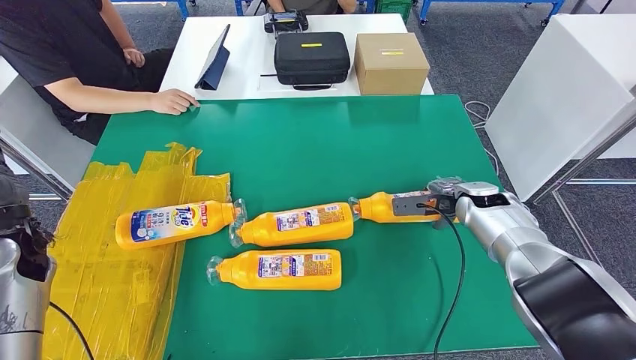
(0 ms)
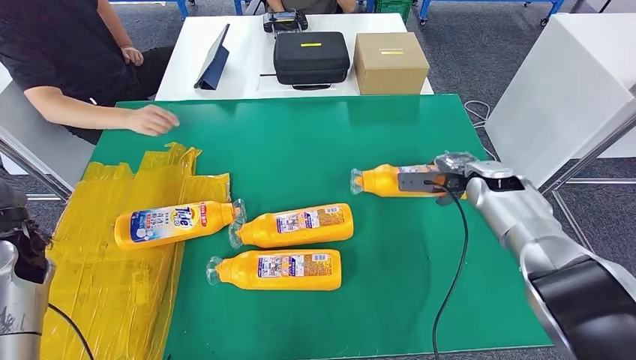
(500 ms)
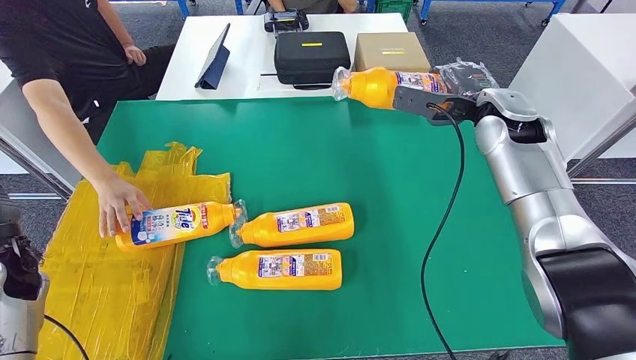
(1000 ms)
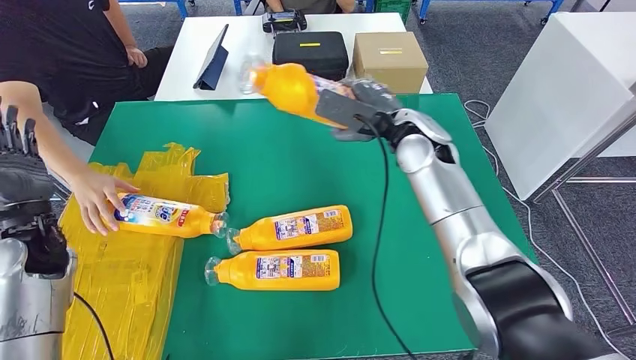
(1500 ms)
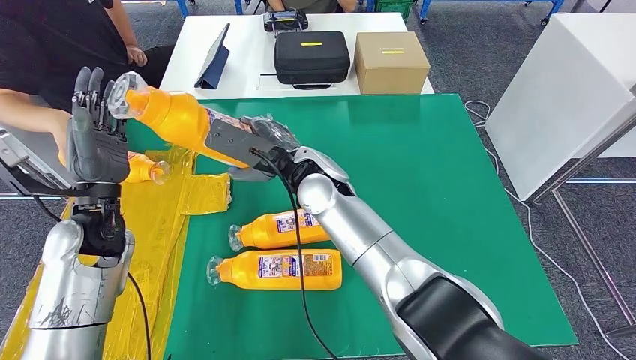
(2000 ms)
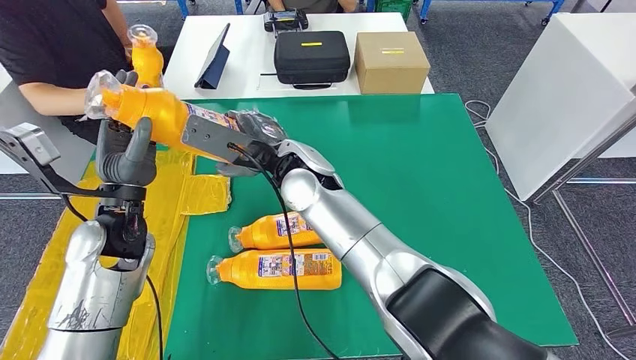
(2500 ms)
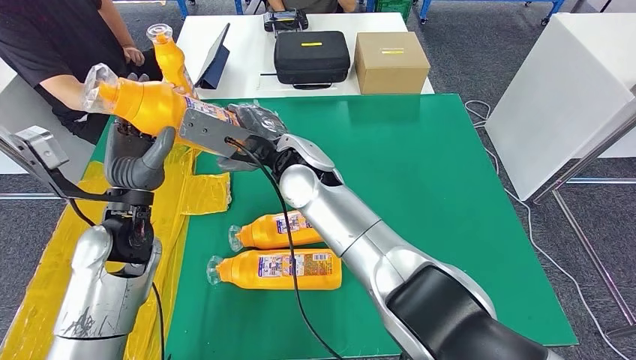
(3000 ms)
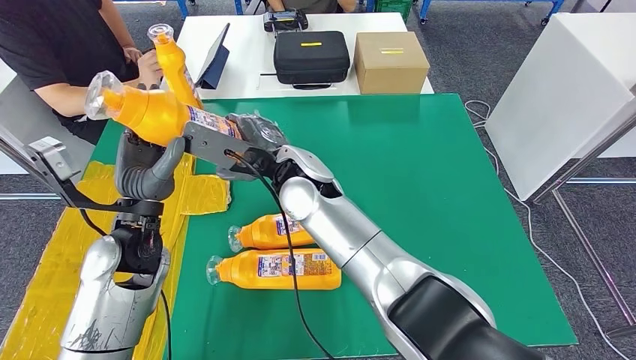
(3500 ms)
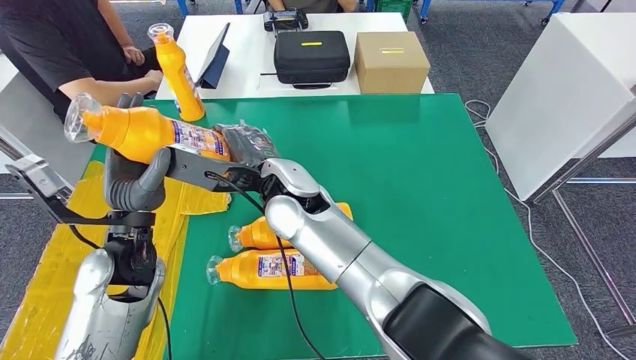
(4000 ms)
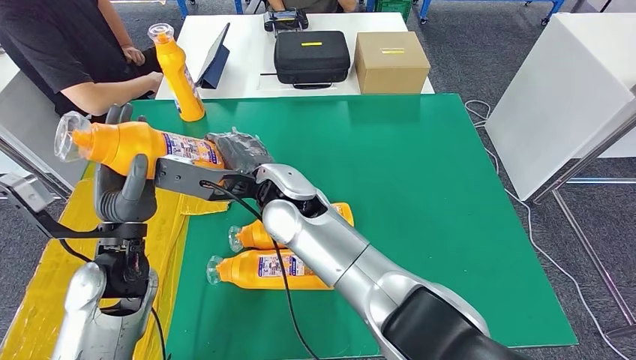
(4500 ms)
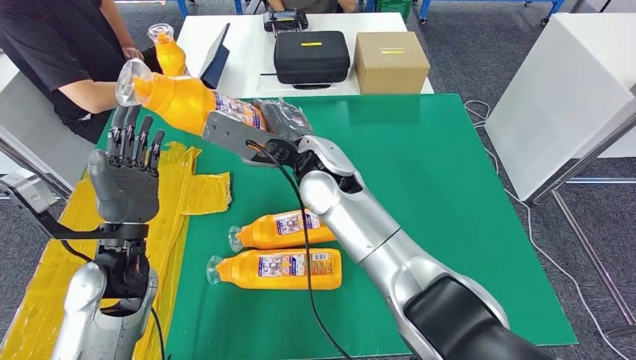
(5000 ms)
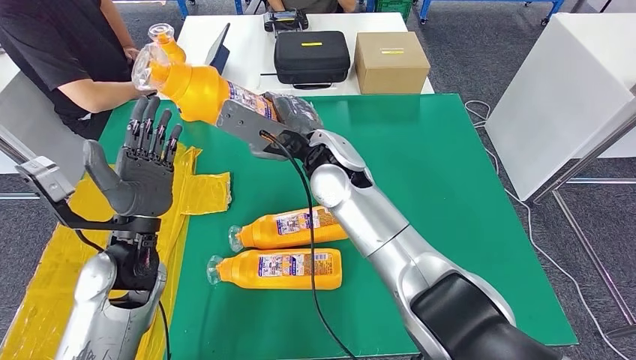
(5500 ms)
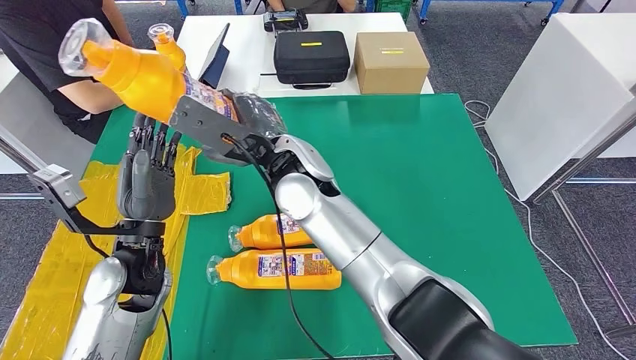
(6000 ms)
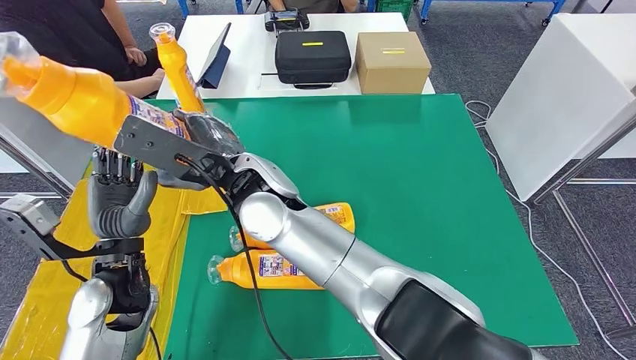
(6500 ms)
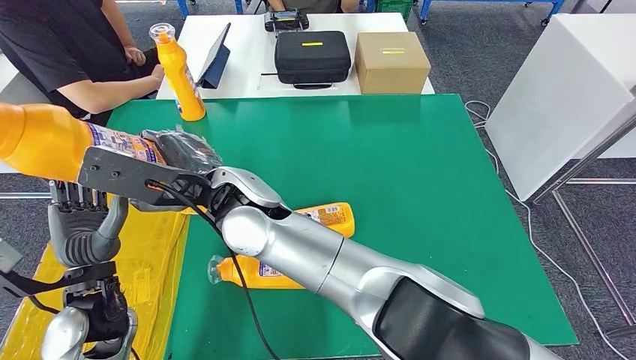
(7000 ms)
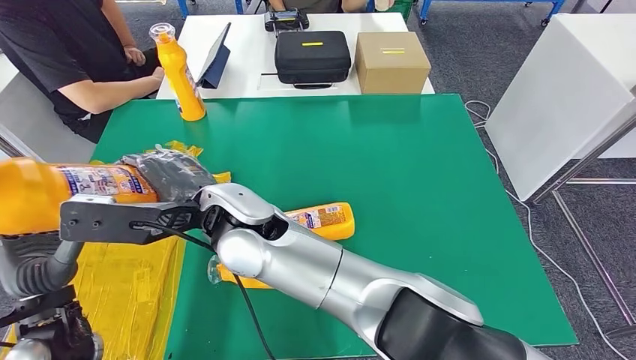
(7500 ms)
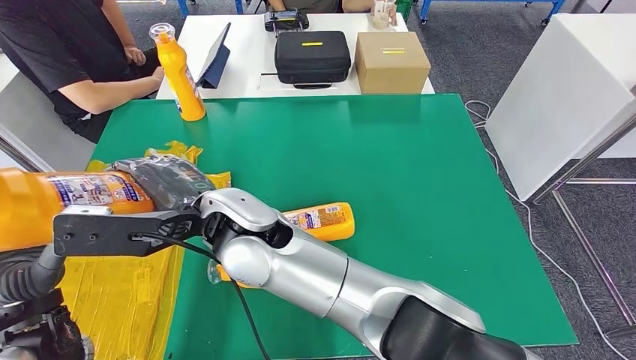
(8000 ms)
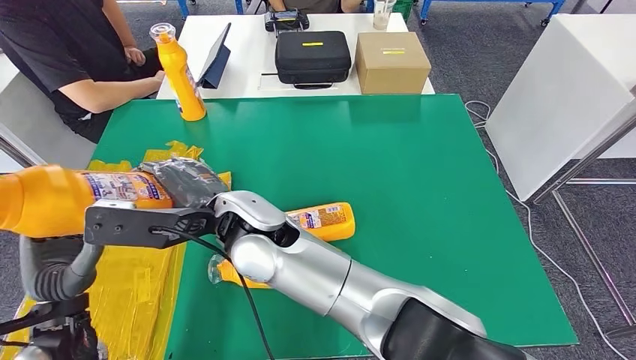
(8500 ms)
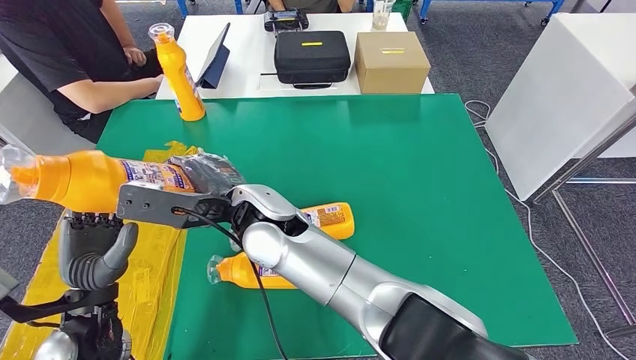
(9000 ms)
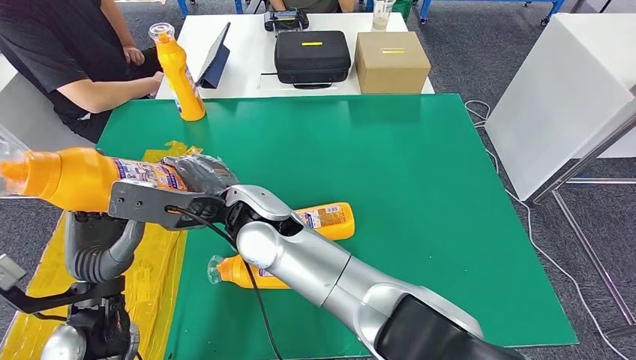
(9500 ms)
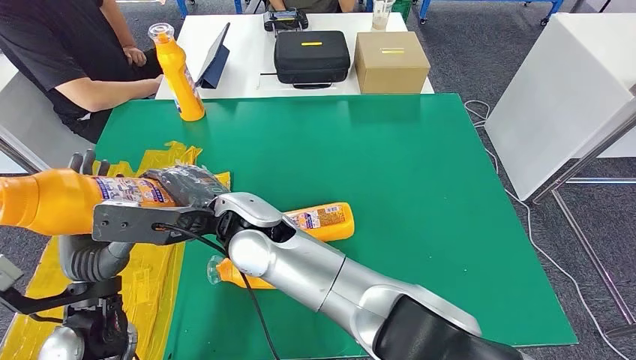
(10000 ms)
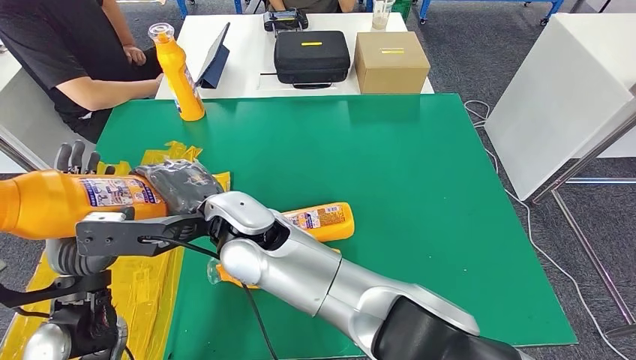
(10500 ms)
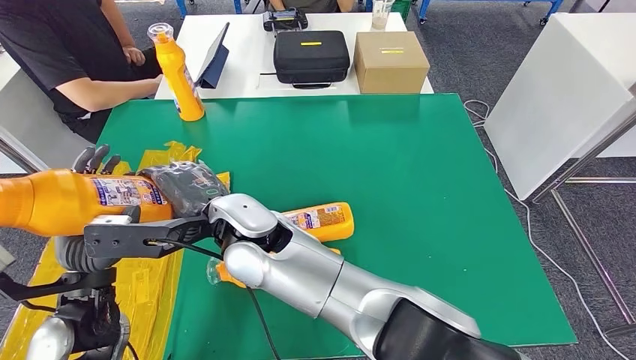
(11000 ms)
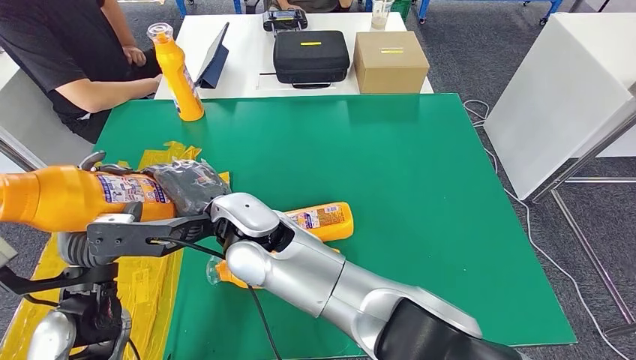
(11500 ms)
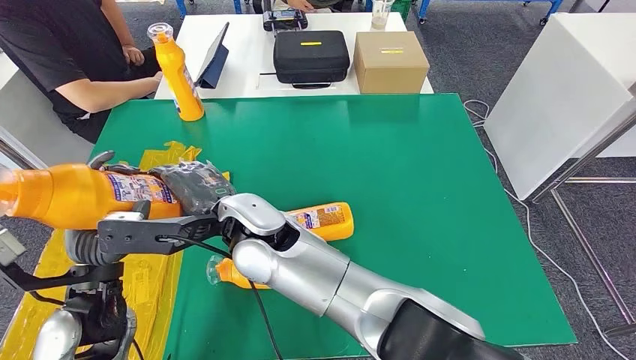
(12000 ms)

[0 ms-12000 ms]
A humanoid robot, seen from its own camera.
Step, 0 ms to 3000 ms: Pick up the bottle from the table.
8000 ms to 10000 ms: The left hand shifts approximately 5 cm to the right.
10000 ms to 12000 ms: There are only small adjustments of the hands.

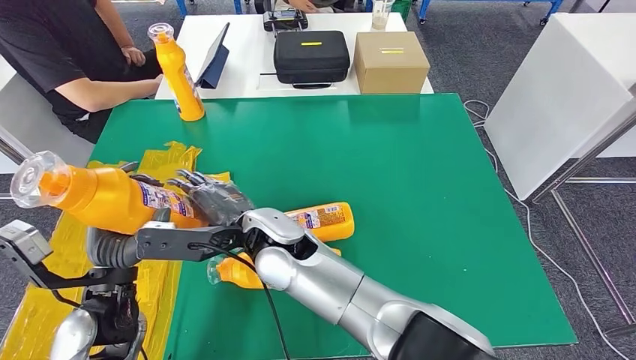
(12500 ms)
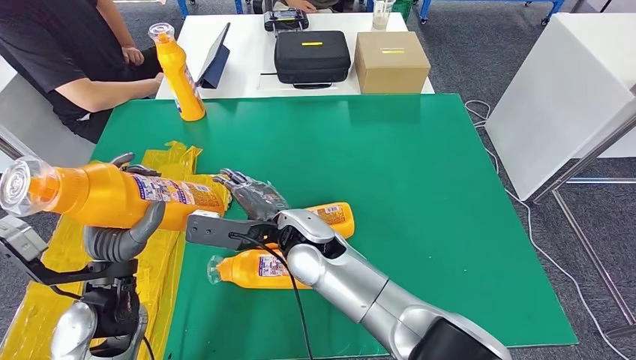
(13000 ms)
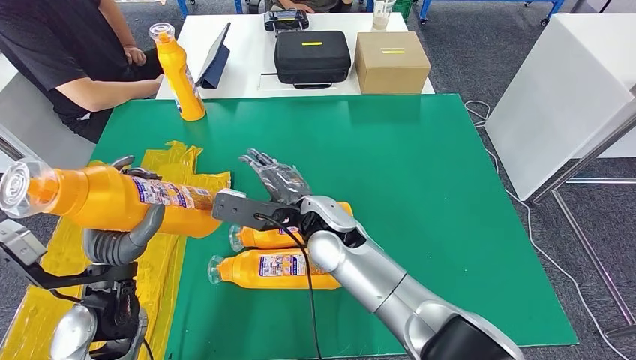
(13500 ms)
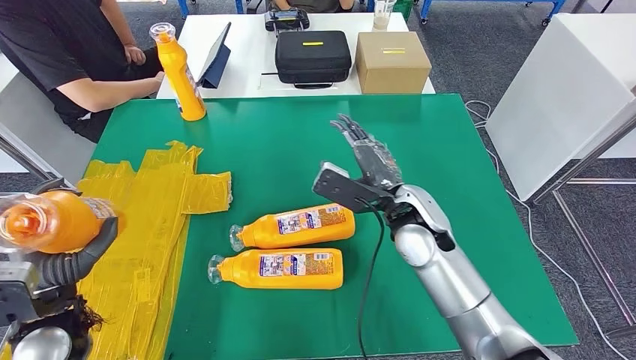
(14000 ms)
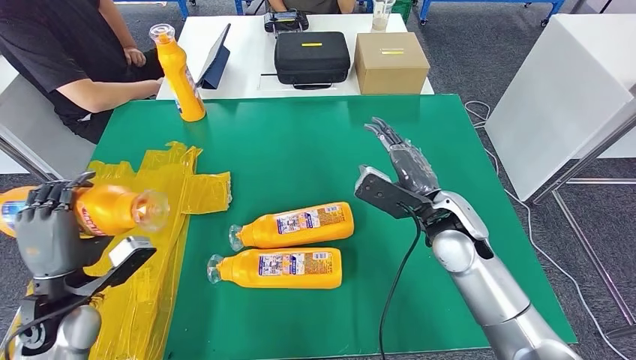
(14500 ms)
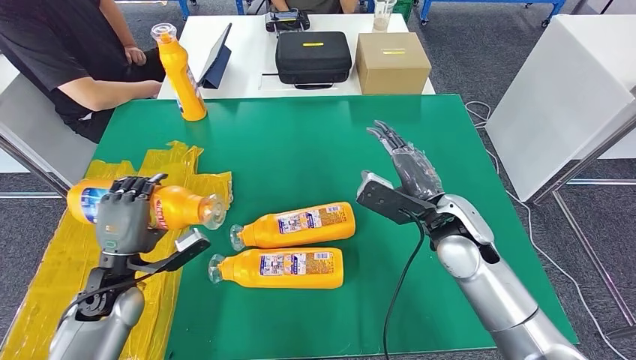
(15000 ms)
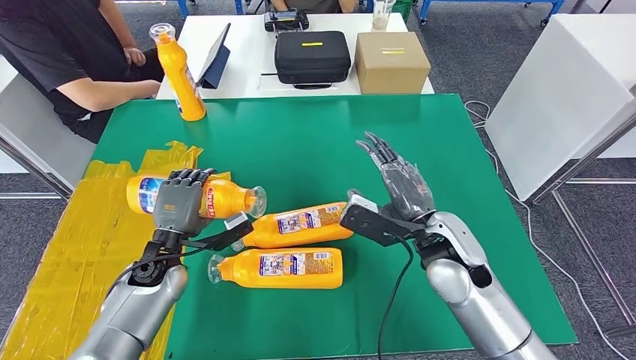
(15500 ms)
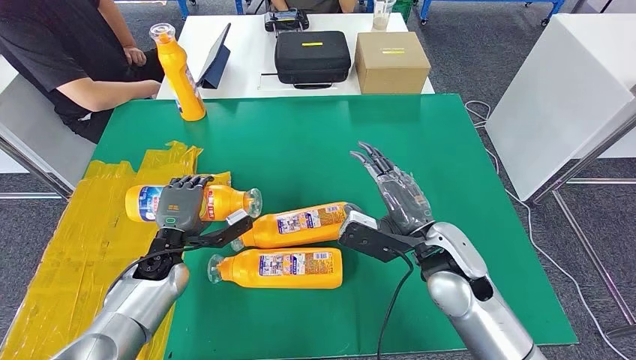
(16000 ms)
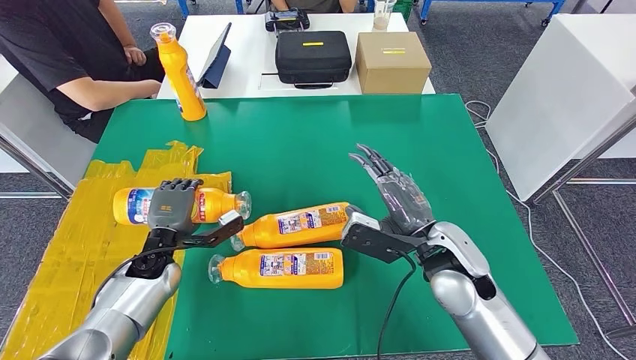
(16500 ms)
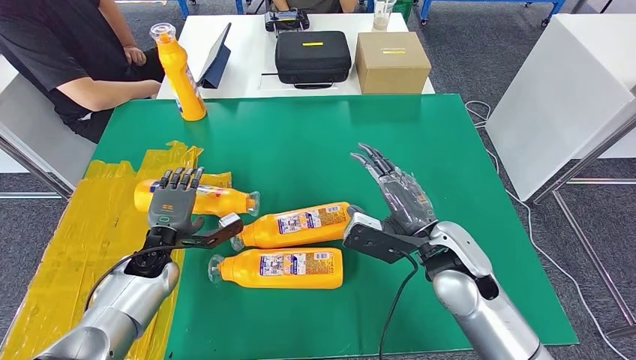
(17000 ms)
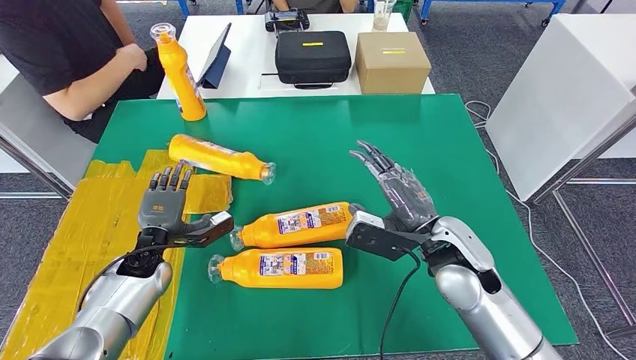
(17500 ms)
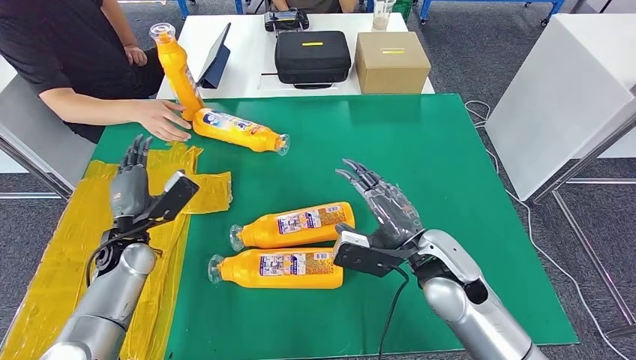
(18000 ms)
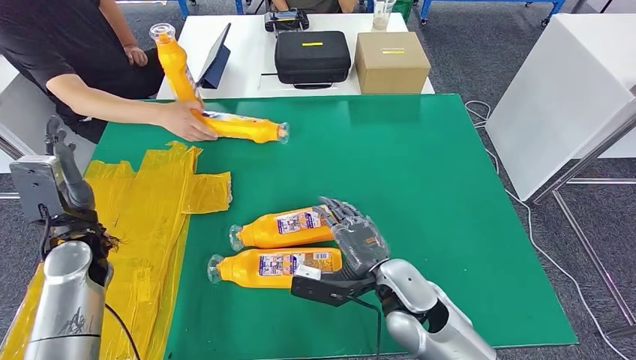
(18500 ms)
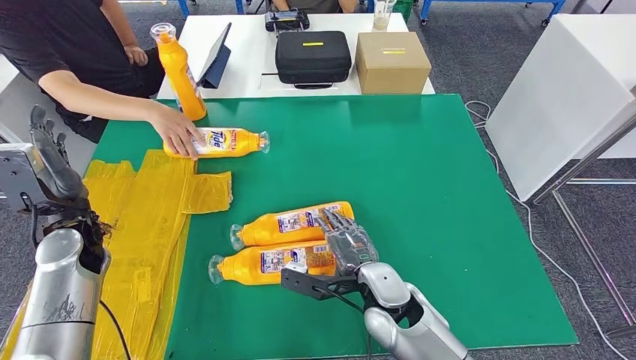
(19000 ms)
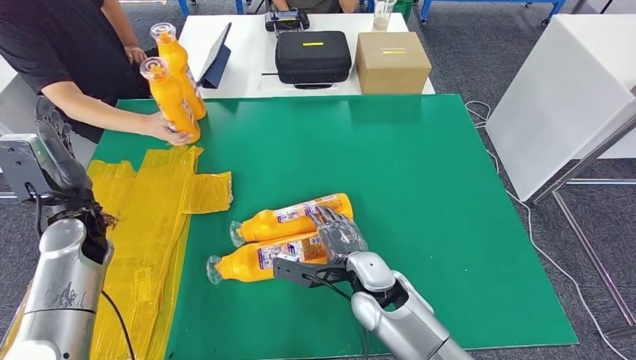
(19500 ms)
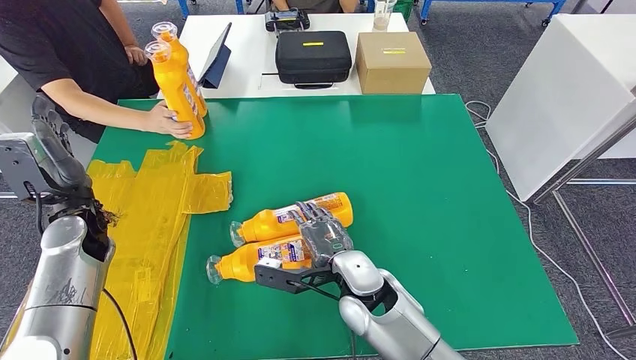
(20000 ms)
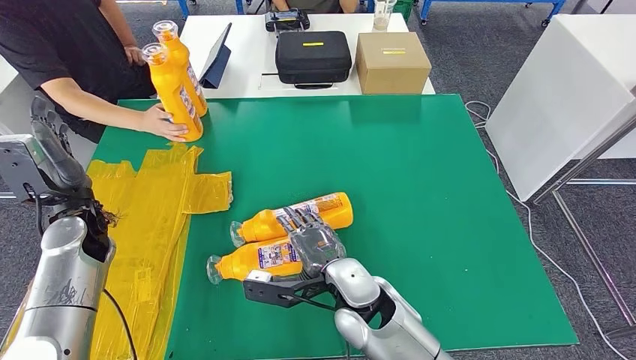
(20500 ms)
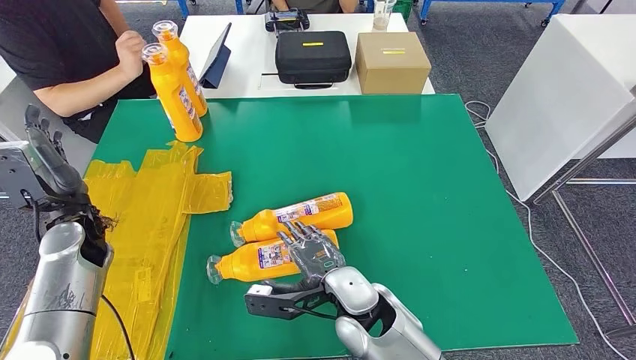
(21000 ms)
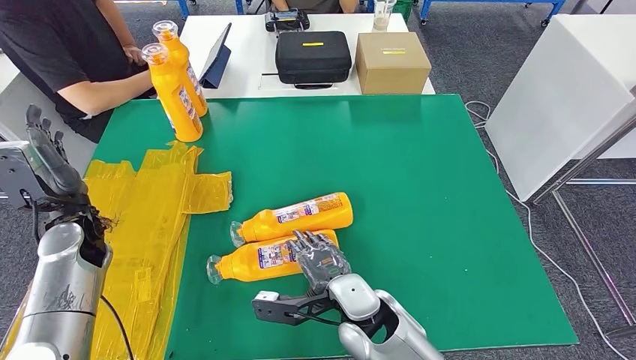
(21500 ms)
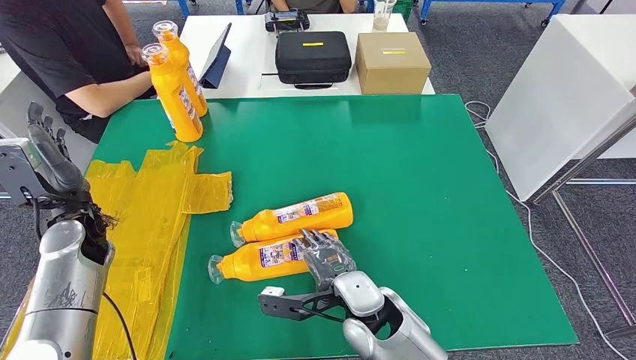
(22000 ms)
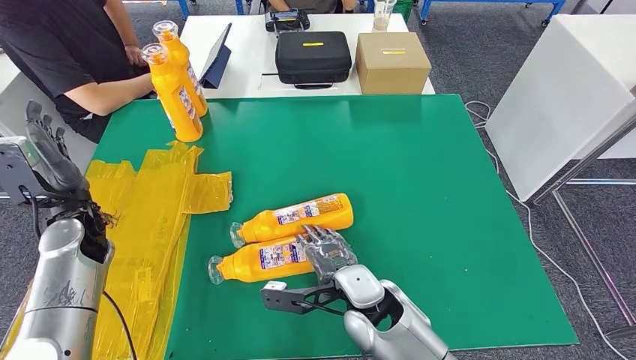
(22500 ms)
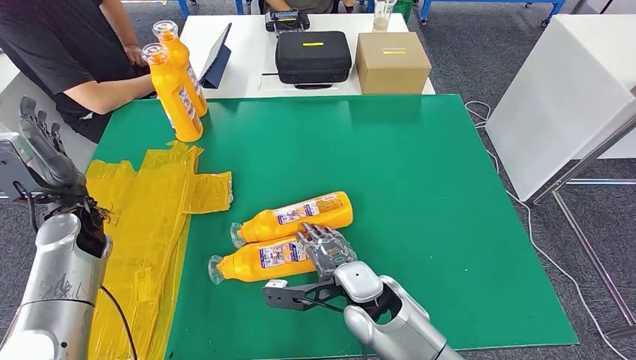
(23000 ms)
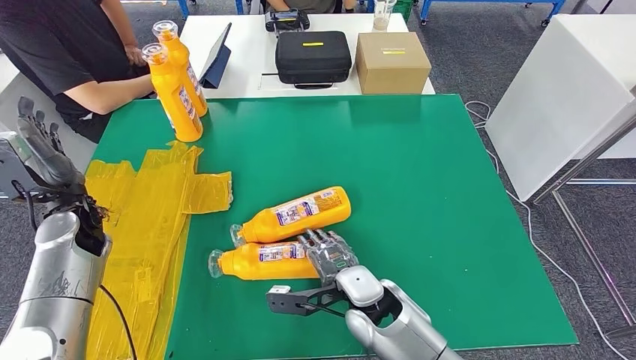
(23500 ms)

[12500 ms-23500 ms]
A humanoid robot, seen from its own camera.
Step, 12500 ms to 15000 ms: Flip the bottle to face forward.
16000 ms to 18000 ms: The left hand heads to the left, covering approximately 5 cm.
20000 ms to 23500 ms: There are only small adjustments of the hands.
